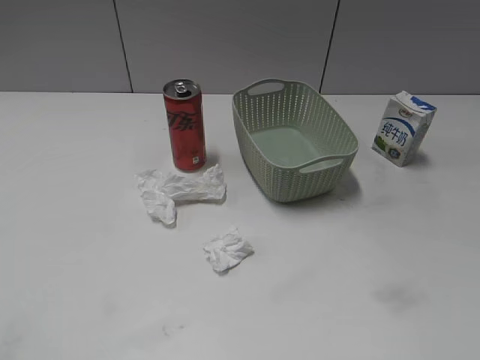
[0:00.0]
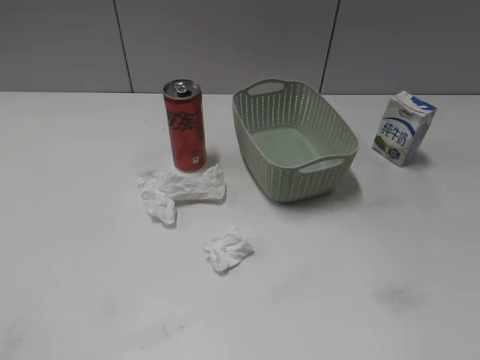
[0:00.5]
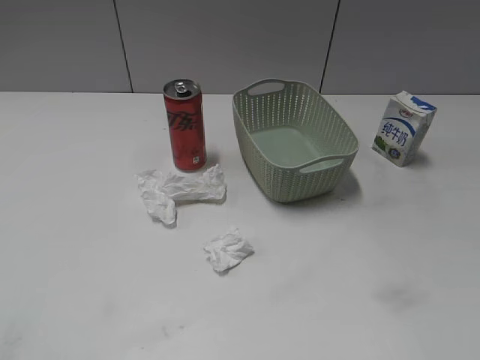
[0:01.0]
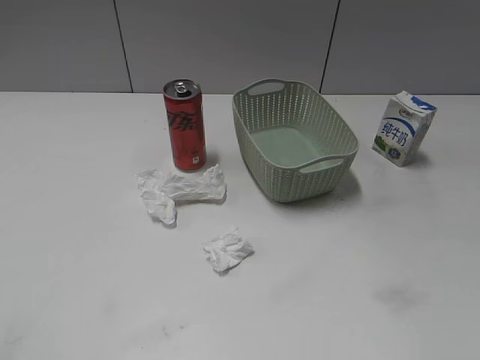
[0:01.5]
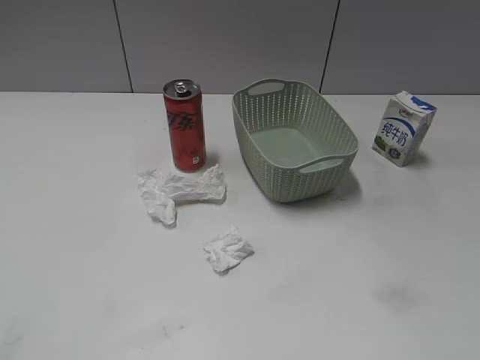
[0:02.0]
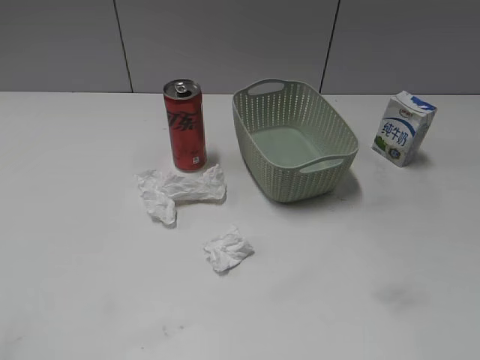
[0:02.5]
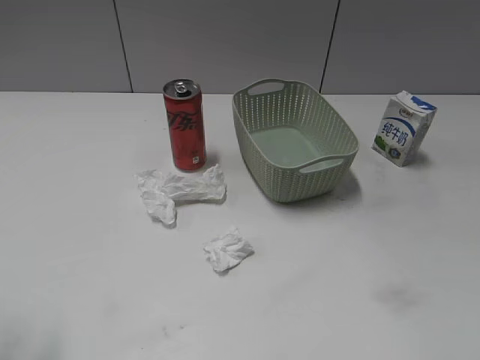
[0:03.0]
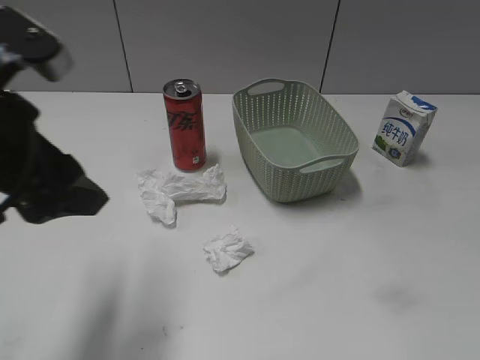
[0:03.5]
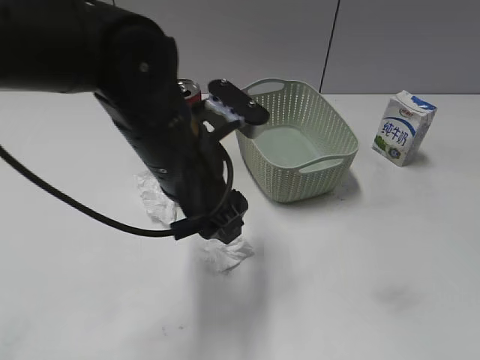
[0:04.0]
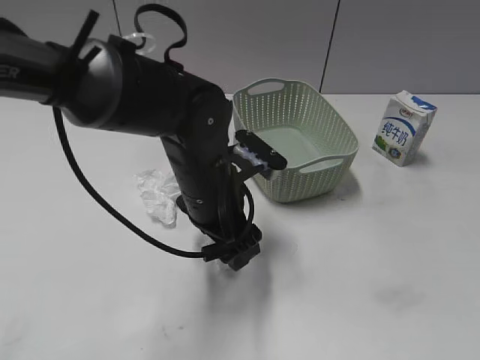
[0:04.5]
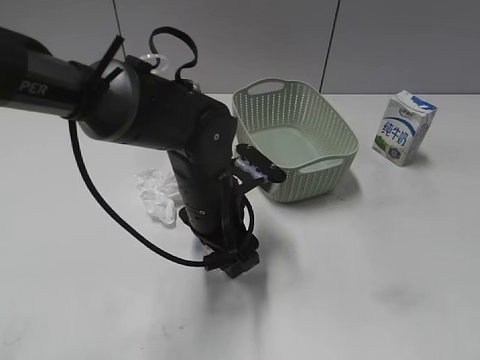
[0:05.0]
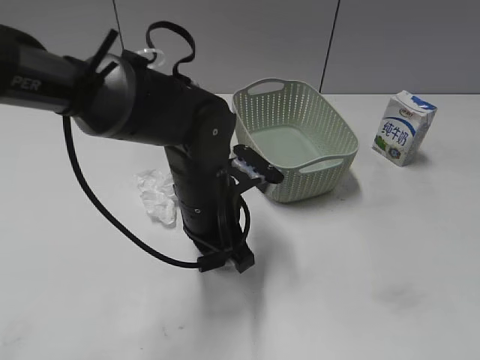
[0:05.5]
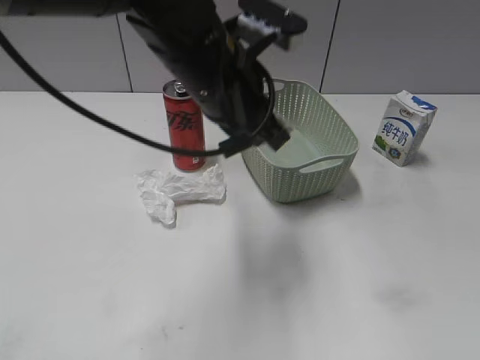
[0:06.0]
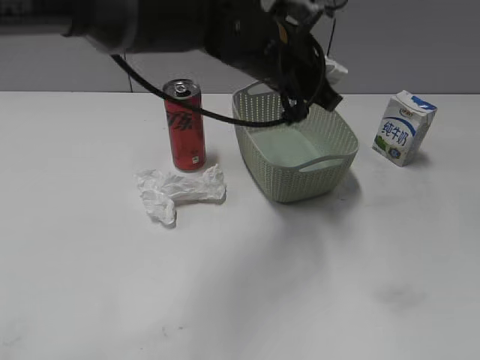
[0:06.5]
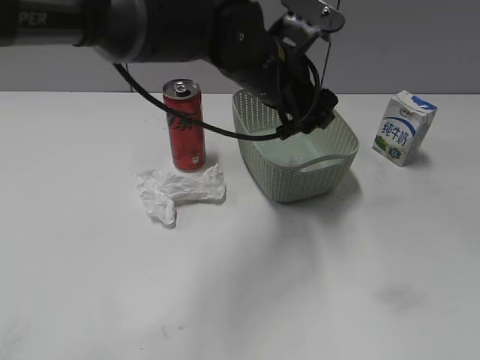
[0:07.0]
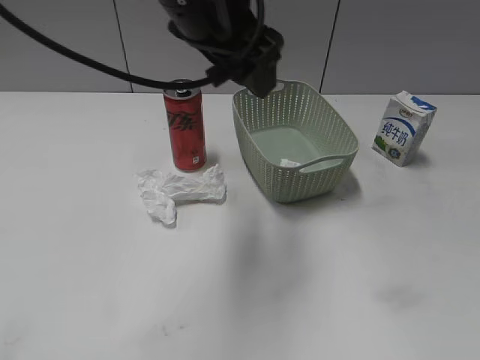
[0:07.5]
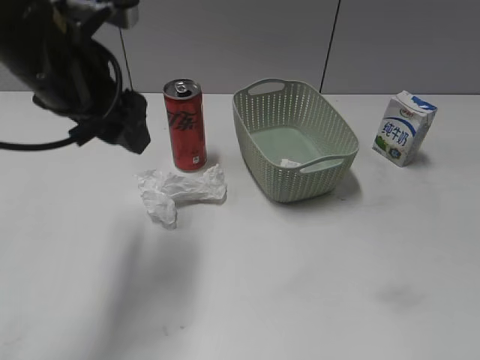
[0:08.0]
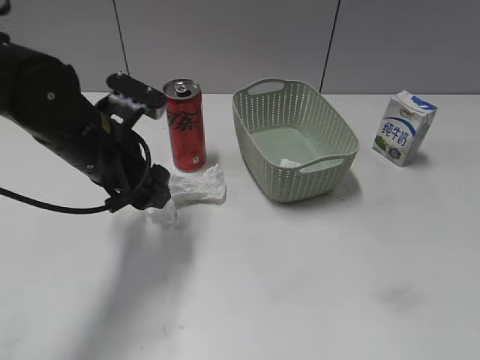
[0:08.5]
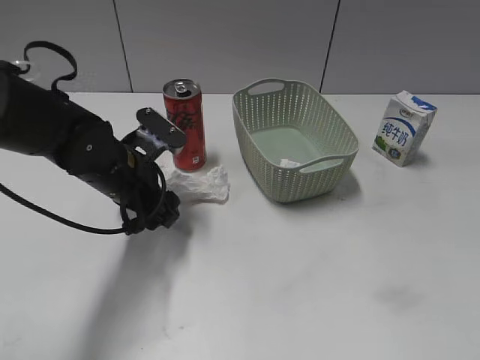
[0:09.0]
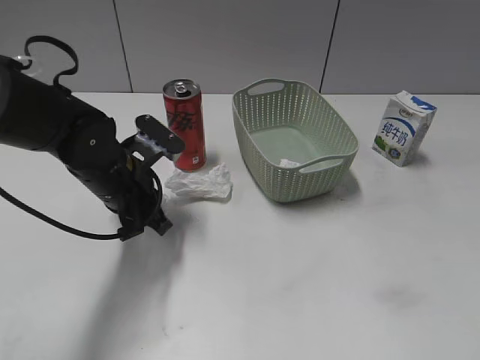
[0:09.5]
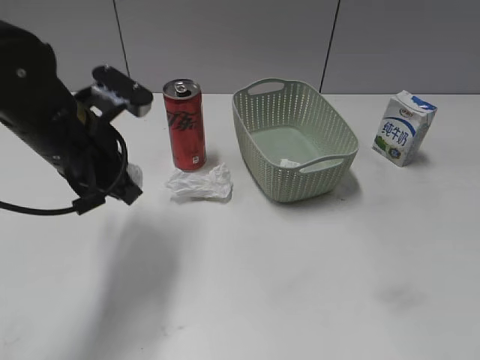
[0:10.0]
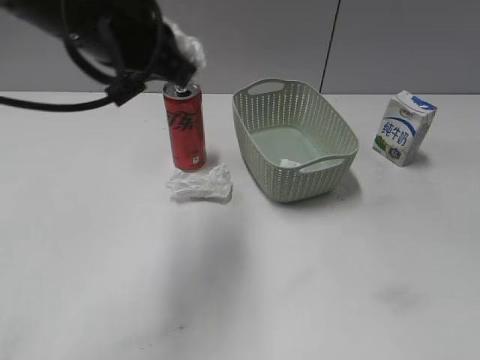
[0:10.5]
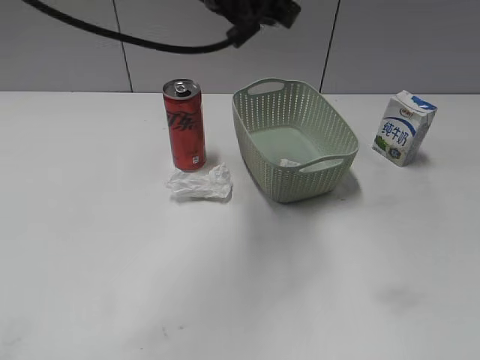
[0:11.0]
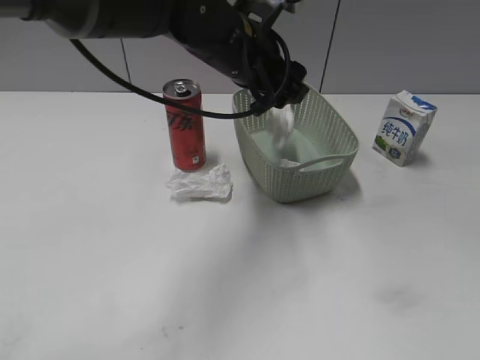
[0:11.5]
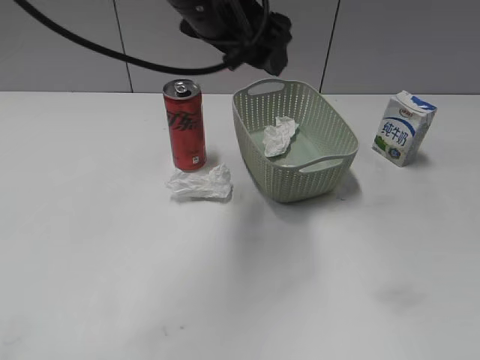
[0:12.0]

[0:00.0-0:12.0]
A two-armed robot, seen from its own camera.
Step, 0:03.5 to 0:05.5: Grasp the waste paper with left gripper.
Step, 0:06.0 to 0:07.0: Place the waste paper in the basket with left gripper.
Step, 0:07.5 to 0:09.5: Grasp the waste paper with left gripper.
Step, 0:10.0 to 0:11.5: Place the waste paper in the basket with left gripper.
0:02.0 to 0:04.0: The left gripper is displaced to the right and forward by approximately 35 cm, and opens.
0:04.0 to 0:06.0: The left gripper moves about 10 cm downward and comes back, and closes.
0:06.0 to 0:08.0: The left gripper heads to the left, covering approximately 15 cm, and opens up.
0:08.0 to 0:10.0: The left gripper is displaced downward by some 10 cm, and closes up. Meanwhile the right gripper closes.
0:10.0 to 0:12.0: The left gripper shifts roughly 20 cm to the right and upward, and opens.

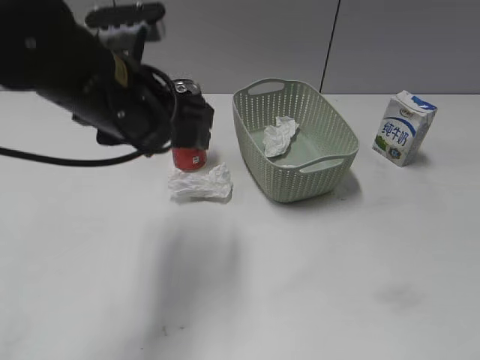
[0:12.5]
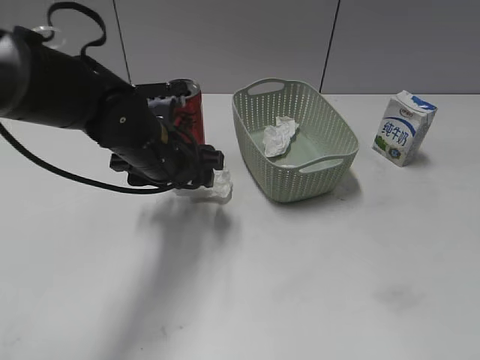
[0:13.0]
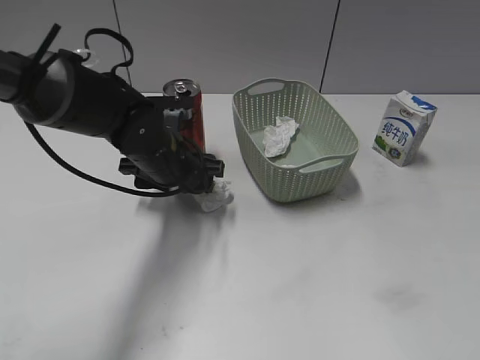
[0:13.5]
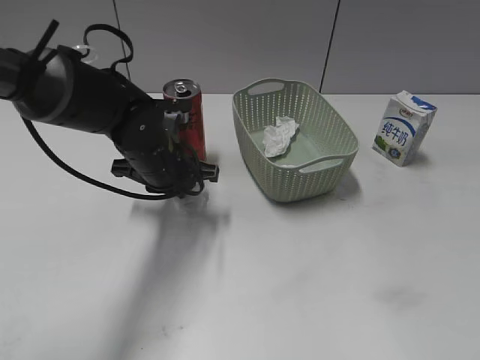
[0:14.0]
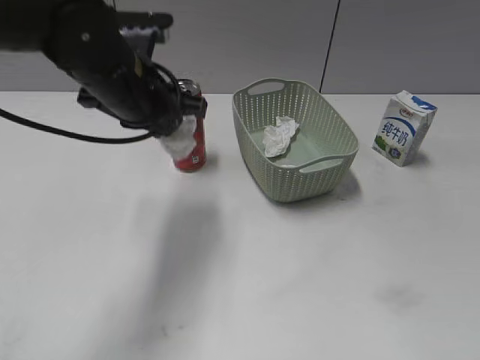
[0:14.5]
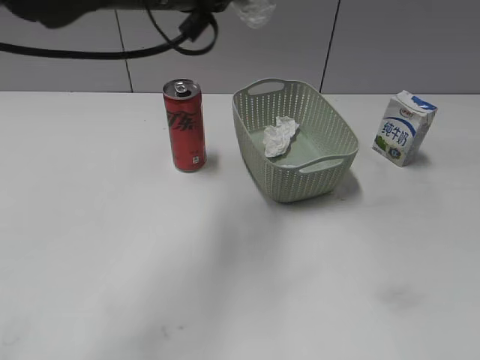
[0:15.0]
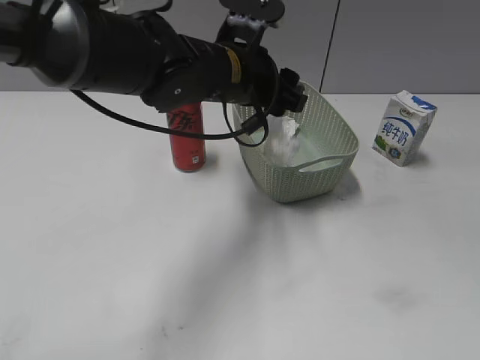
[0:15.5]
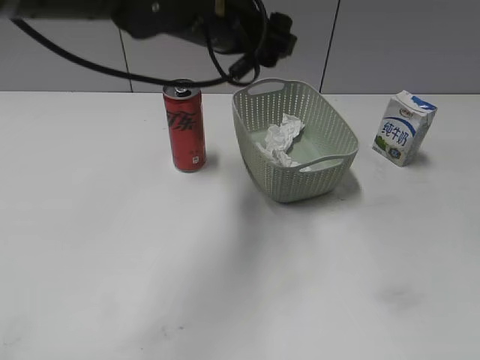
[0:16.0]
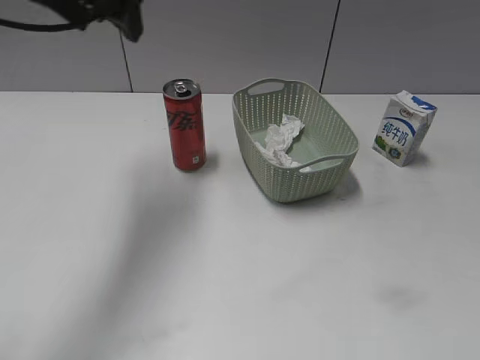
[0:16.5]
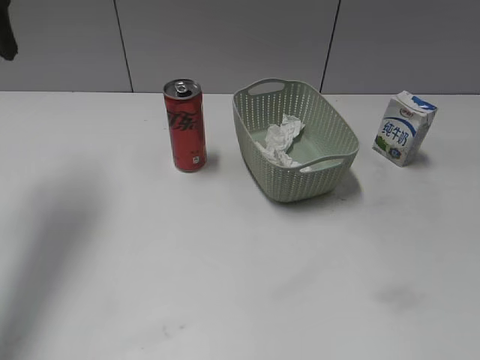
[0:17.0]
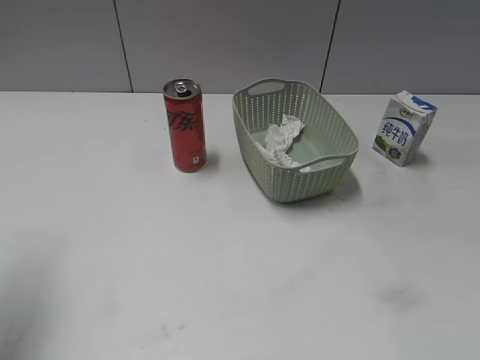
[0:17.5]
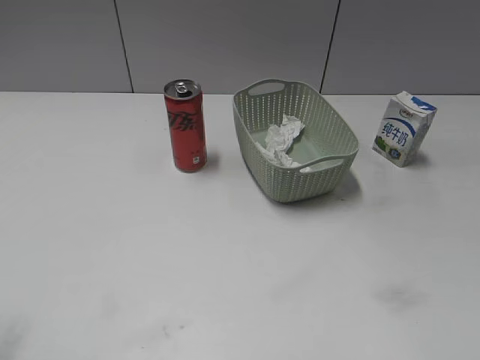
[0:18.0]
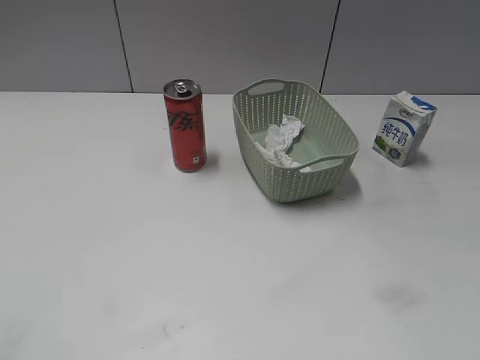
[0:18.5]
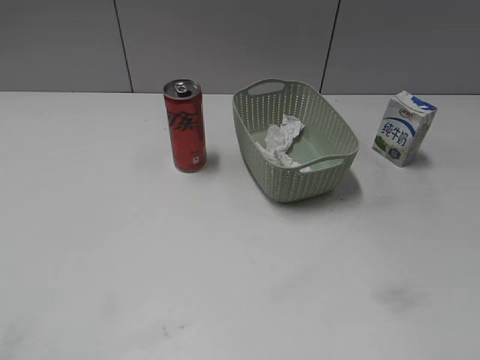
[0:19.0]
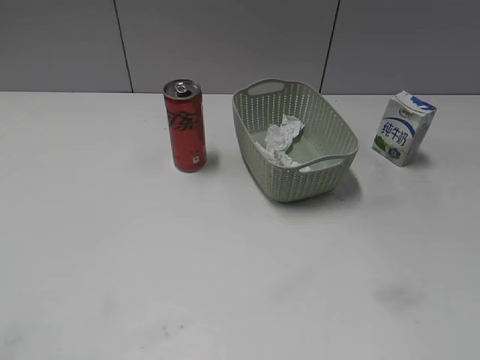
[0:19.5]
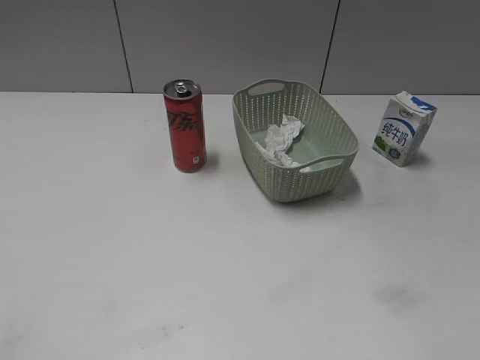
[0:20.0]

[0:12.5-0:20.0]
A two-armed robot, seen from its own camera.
Step, 0:12.5 to 0:14.0: Grasp the waste paper with left gripper.
Step, 0:14.5 to 0:15.5: Place the waste paper in the basket with left gripper.
0:12.5 to 0:14.5: The left gripper is displaced forward by approximately 5 cm, reaches about 15 cm downward, then returns, and closes its fingers.
0:14.5 to 0:16.5: The left gripper moves upward, approximately 15 cm, travels to the right and back again, about 10 cm each way, and opens.
0:16.5 to 0:18.0: The left gripper goes about 30 cm backward and to the left.
